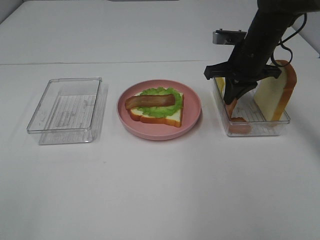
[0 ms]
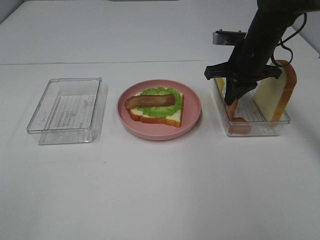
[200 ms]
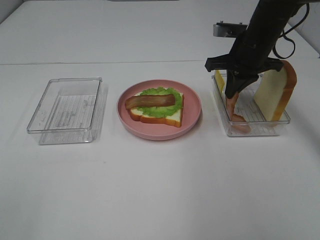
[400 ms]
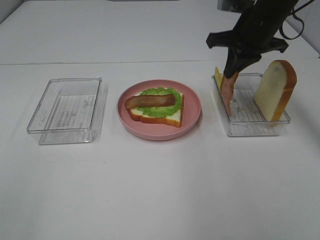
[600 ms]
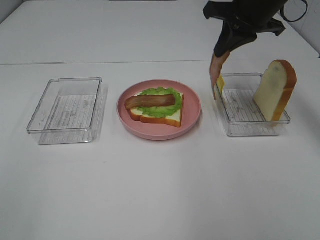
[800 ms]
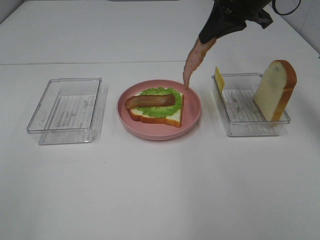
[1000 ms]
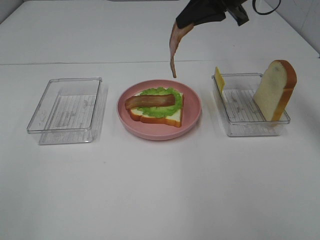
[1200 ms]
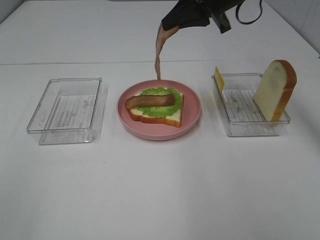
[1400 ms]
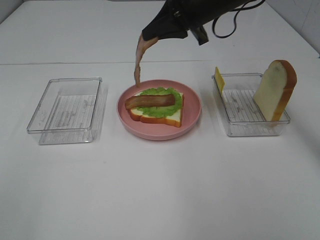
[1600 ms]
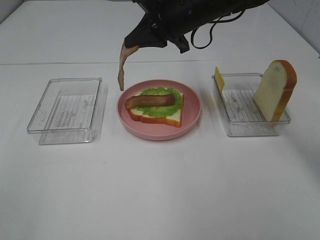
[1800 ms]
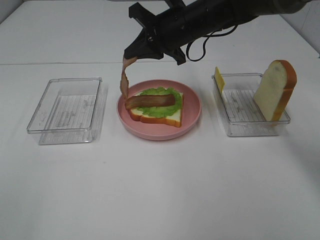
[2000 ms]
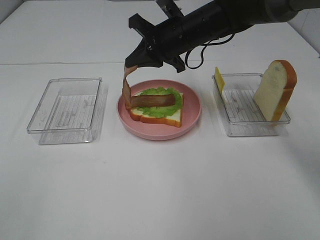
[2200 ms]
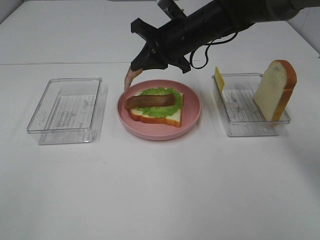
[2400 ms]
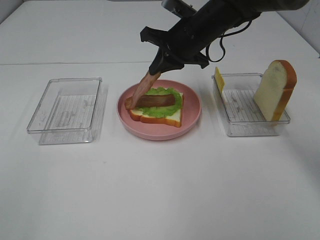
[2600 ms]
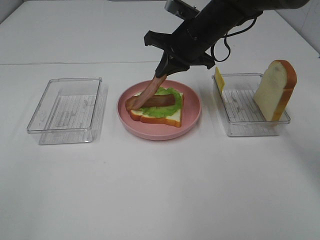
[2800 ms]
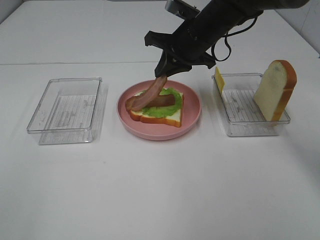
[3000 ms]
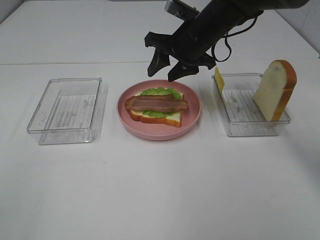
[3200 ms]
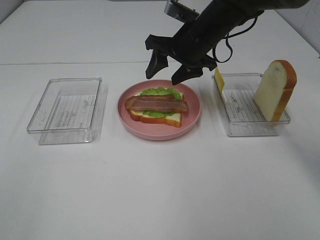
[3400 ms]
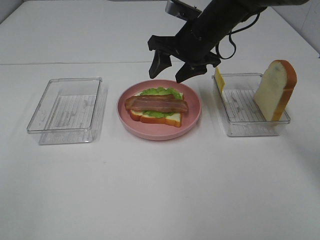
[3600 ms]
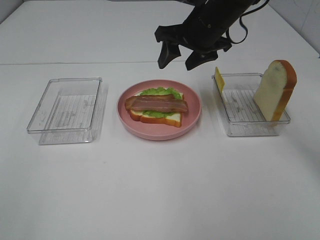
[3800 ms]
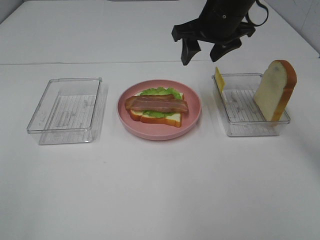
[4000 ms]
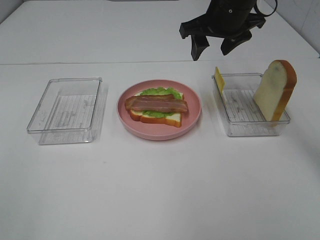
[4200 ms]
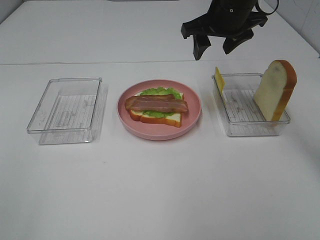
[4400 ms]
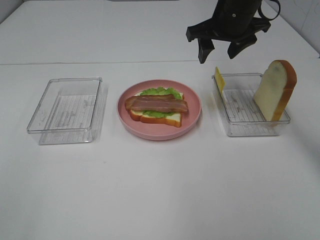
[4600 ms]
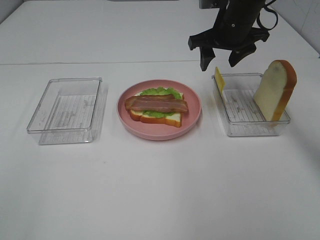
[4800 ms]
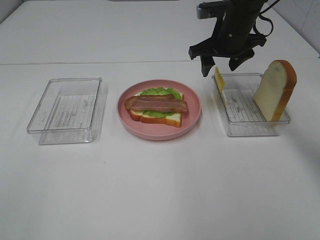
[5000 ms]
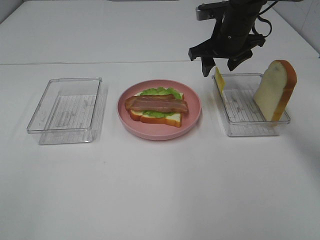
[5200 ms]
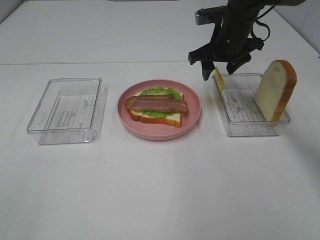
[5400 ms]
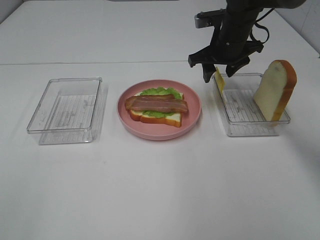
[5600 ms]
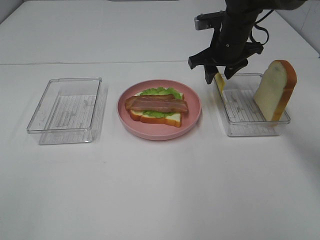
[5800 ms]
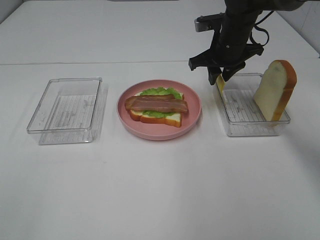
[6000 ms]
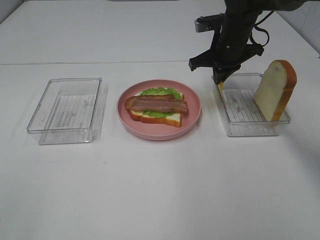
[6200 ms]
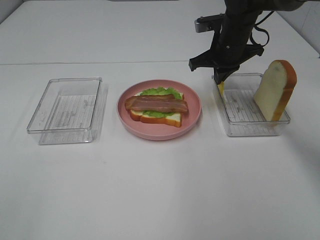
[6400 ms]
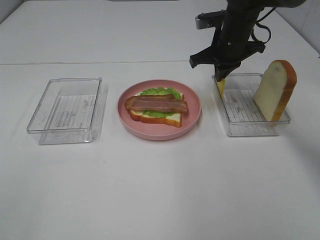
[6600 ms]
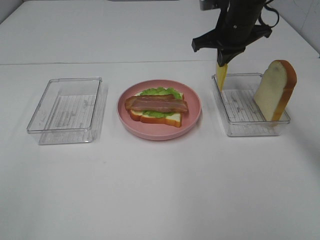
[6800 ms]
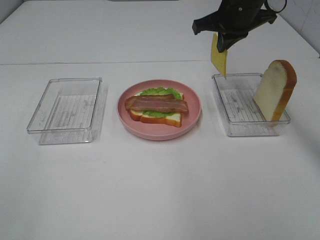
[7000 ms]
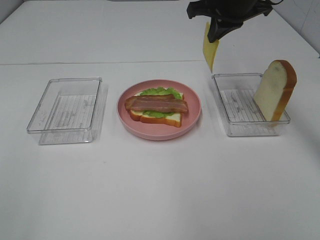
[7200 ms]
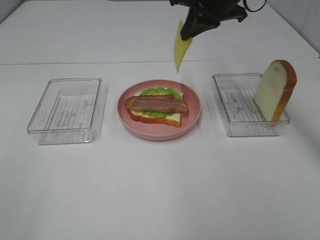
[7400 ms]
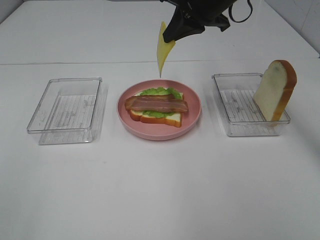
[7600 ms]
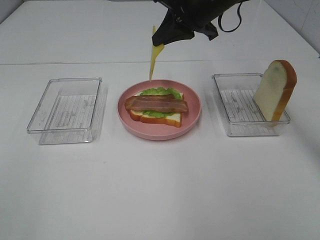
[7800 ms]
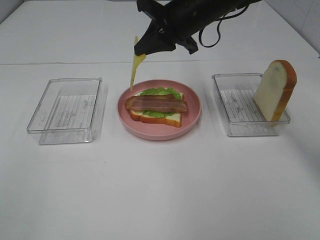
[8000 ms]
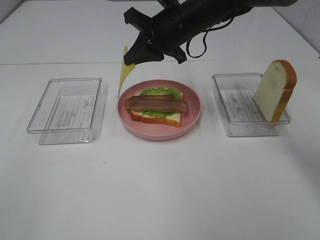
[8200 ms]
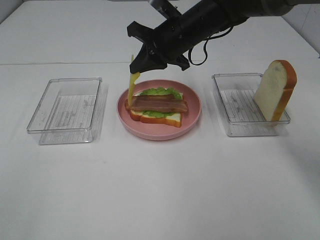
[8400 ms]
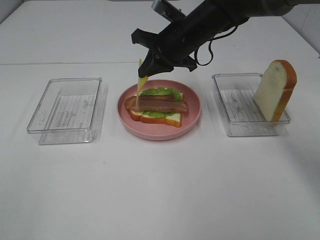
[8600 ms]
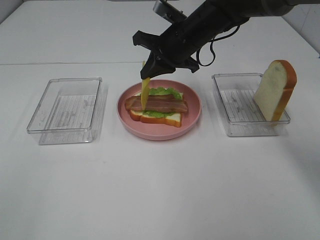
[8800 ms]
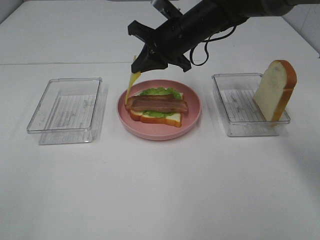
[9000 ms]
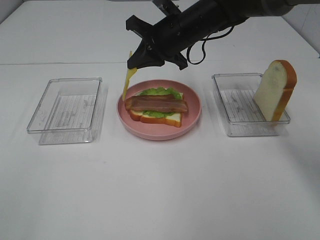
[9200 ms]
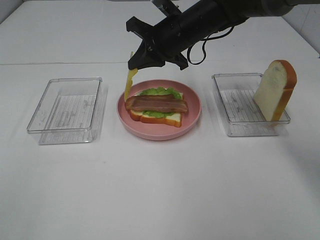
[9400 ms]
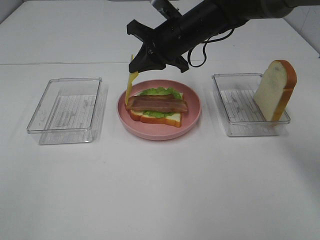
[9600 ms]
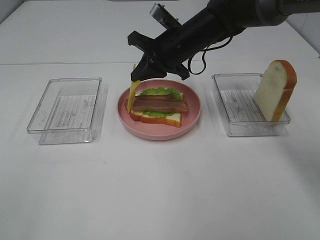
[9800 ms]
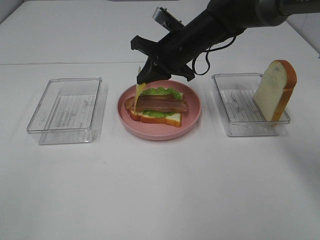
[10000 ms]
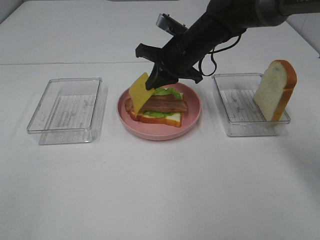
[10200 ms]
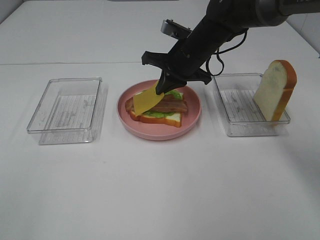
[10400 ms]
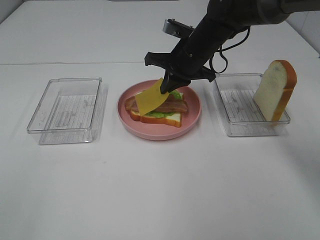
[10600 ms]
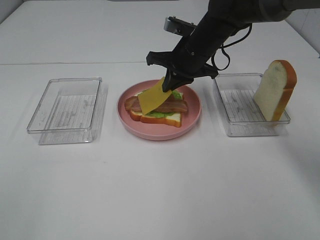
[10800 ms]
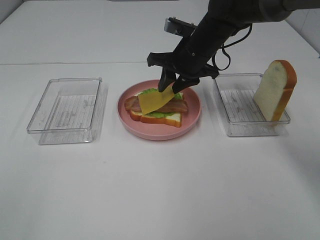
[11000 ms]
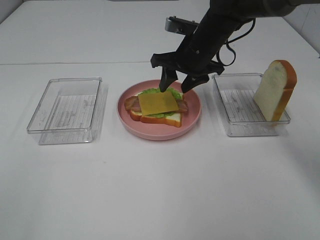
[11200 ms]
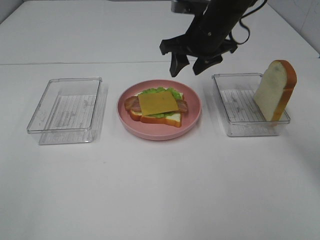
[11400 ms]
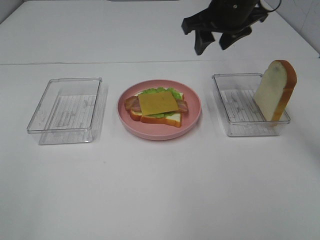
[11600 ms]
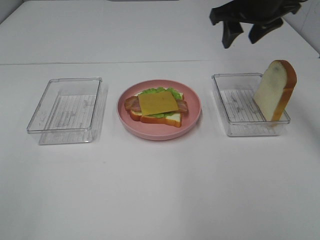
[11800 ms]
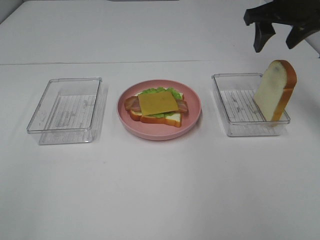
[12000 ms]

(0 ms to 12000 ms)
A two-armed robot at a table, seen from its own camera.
Task of the whole recording: Make sandwiches.
Step, 200 ms - 3600 ms: Right hand:place bacon on bacon.
Step, 3800 ms - 6200 ms: Right hand:grab the cheese slice.
Step, 6400 ms - 11200 ms: Right hand:place the cheese slice on top of the bacon.
0 ms - 1600 ms: The right gripper heads to the left and upward, covering roughly 15 cm.
1600 ms - 3000 ms: The right gripper moves downward, approximately 5 cm.
3000 ms - 4400 ms: The right gripper is displaced upward by about 5 cm, and opens.
4400 ms - 6000 ms: The right gripper goes about 10 cm downward, and closes.
6000 ms - 7600 ms: The right gripper shifts some 10 cm upward, and closes.
7600 ms - 9000 ms: The right gripper moves downward, roughly 10 cm.
9000 ms - 10400 ms: The grippers move only a little.
10400 ms - 12000 ms: The right gripper travels to the right and upward by approximately 20 cm, and opens.

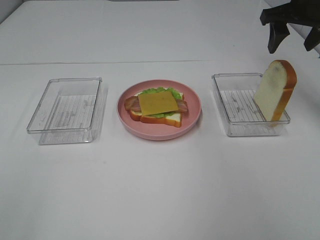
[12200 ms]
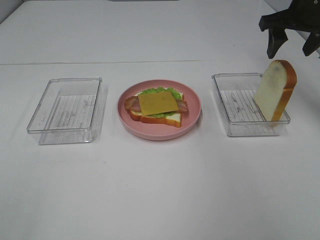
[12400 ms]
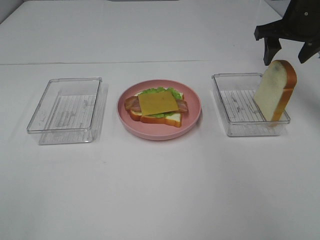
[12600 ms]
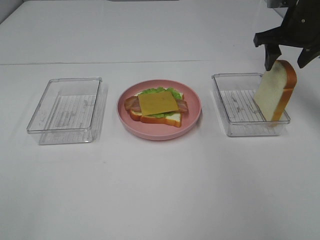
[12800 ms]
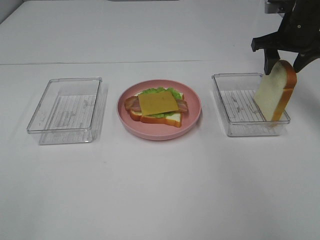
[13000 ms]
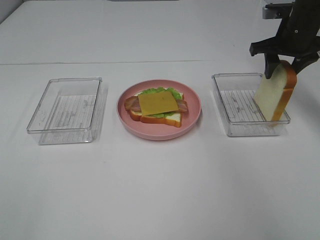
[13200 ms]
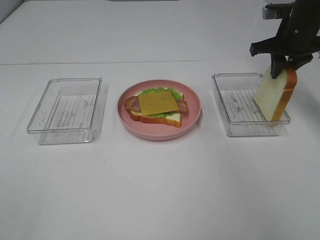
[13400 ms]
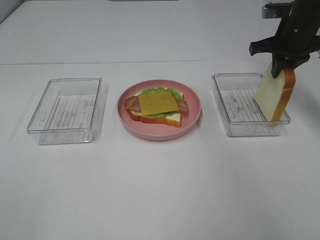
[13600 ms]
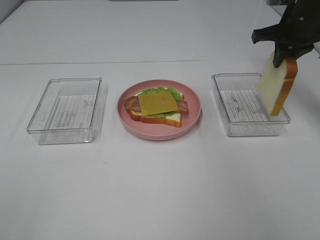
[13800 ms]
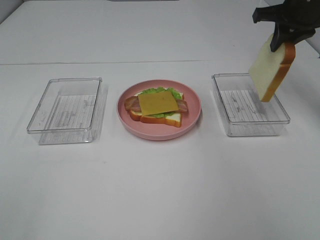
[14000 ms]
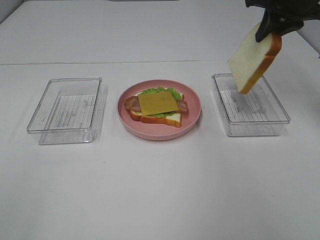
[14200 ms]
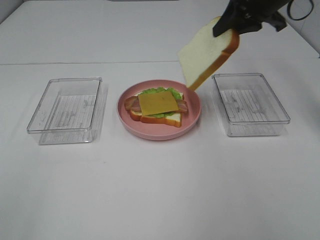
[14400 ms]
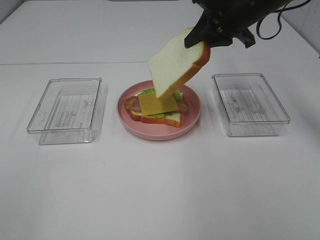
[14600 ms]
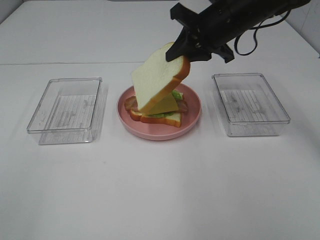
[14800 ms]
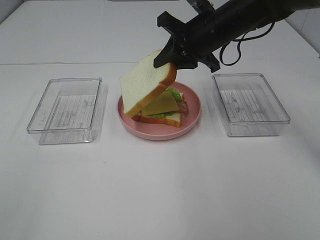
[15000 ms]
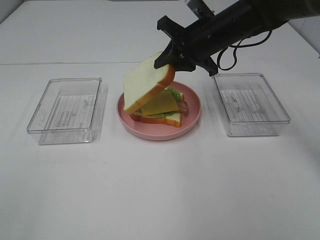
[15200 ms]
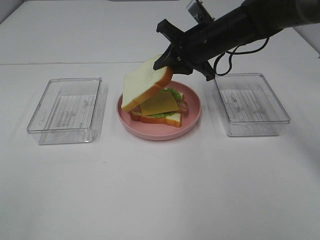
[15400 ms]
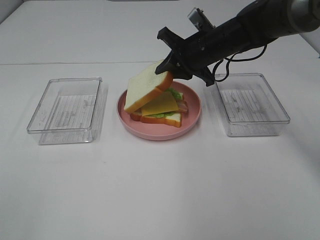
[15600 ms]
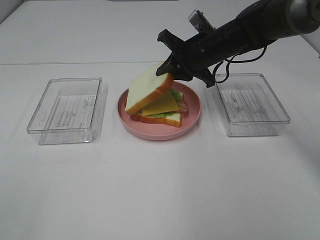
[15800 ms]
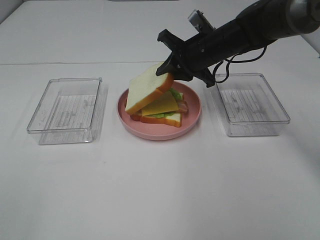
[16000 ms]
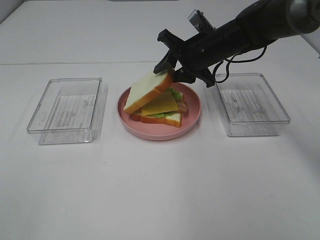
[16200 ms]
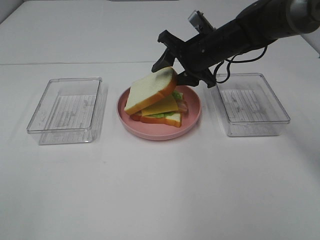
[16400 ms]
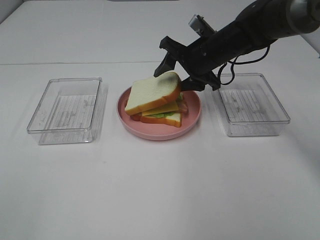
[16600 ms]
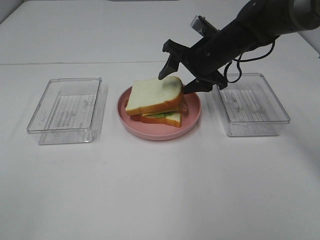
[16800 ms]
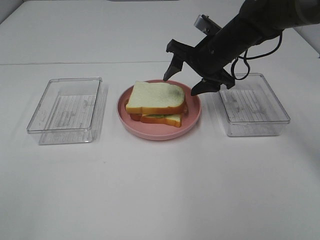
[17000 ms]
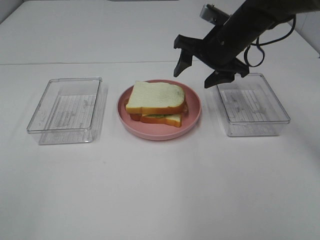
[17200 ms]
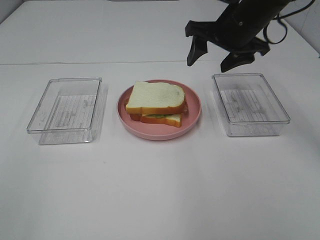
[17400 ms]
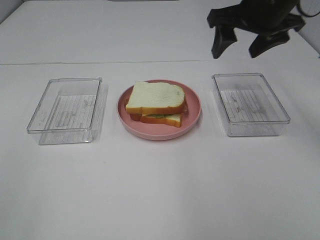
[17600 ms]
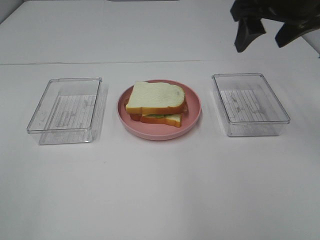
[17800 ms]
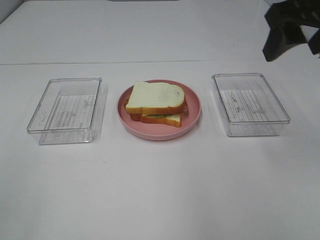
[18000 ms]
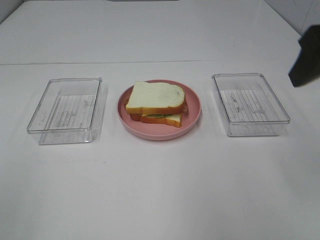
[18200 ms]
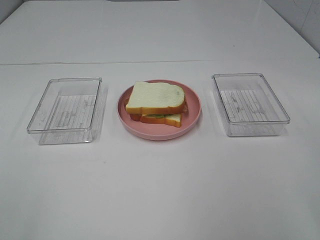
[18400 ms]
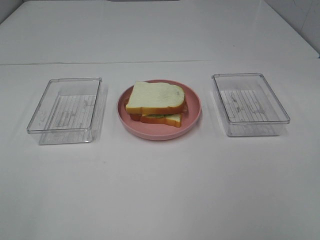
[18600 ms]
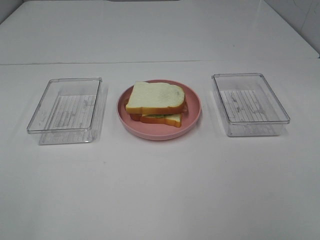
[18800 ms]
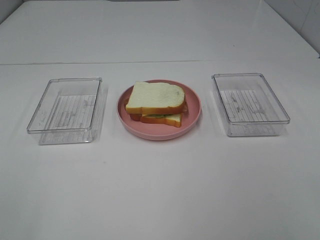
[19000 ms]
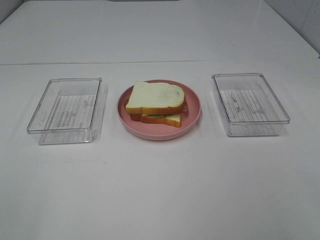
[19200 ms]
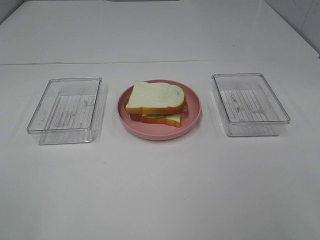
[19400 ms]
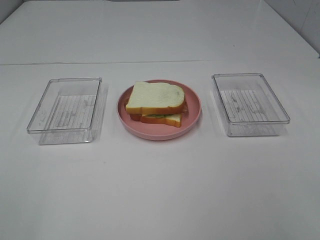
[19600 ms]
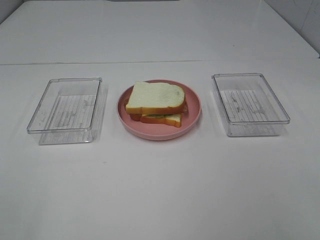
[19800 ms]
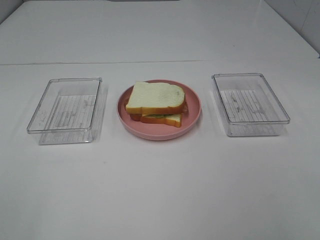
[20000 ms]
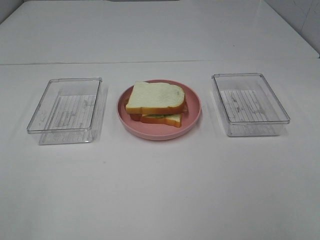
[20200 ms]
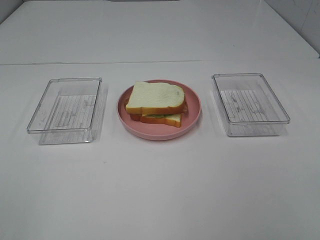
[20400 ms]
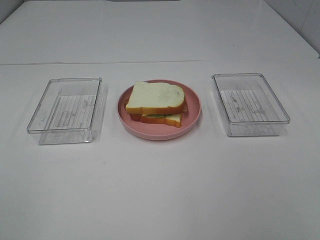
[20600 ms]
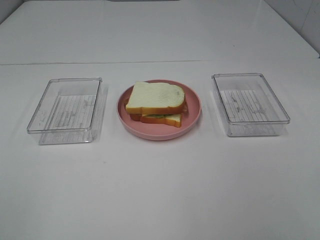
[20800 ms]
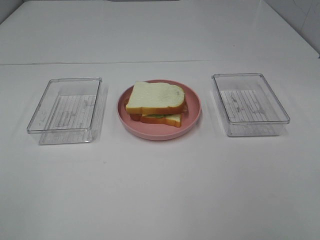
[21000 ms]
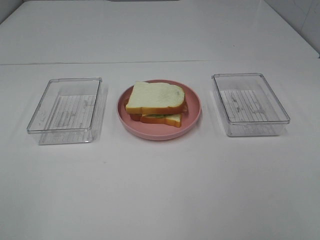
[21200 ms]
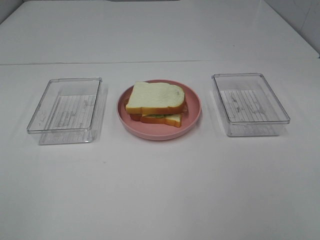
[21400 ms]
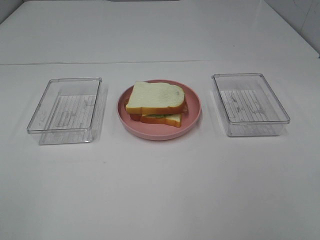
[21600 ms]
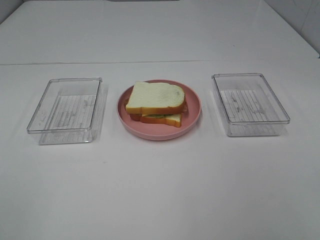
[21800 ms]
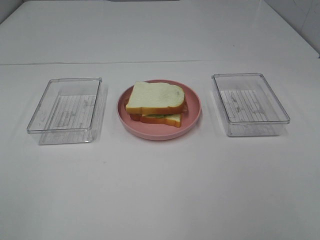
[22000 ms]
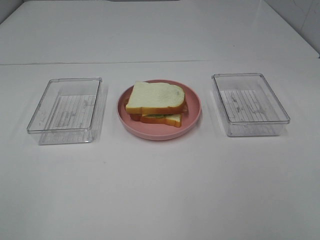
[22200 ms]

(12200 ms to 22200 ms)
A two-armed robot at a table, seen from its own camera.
Task of the whole recording: Make sandwiches.
Step, 12200 ms - 13400 ms: Right hand:grab the bread slice.
Step, 13600 ms - 17400 ms: Right hand:place the bread slice on the cheese slice.
12200 ms - 13600 ms: The right gripper is displaced downward by some 5 cm, and closes.
13600 ms - 15000 ms: The right gripper travels to the left by approximately 15 cm.
15000 ms - 16400 ms: The right gripper travels downward by approximately 5 cm, and opens its fingers.
16400 ms - 18000 ms: The right gripper travels upward, backward and to the right by roughly 25 cm.
18000 ms - 19400 ms: The right gripper shifts roughly 25 cm backward.
20800 ms - 22200 ms: Both grippers stay put.
